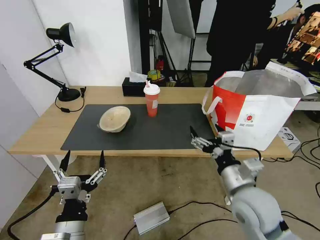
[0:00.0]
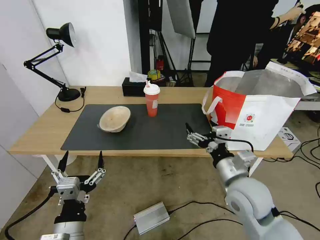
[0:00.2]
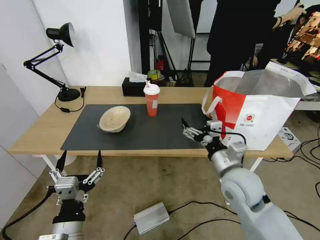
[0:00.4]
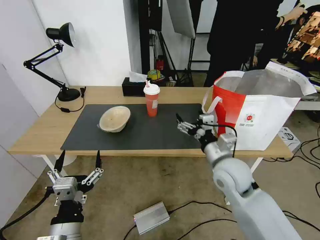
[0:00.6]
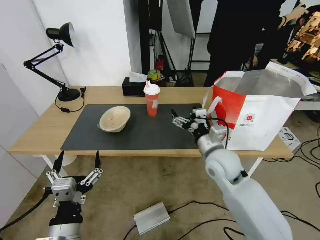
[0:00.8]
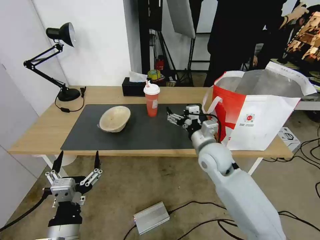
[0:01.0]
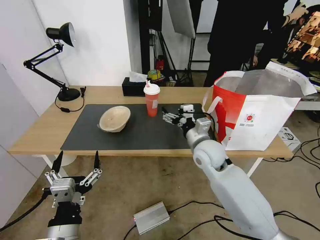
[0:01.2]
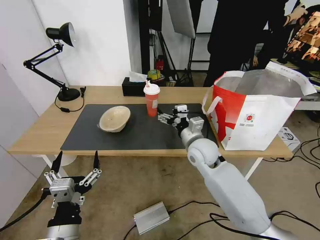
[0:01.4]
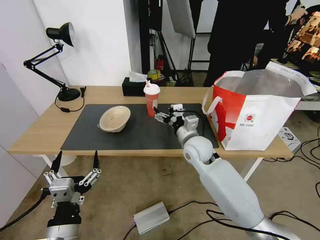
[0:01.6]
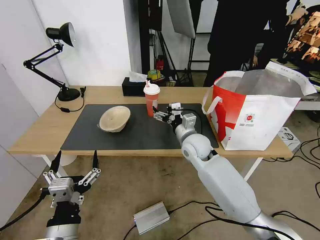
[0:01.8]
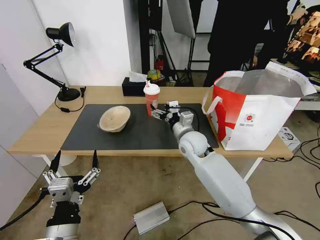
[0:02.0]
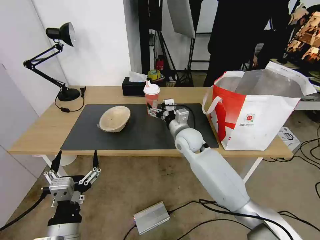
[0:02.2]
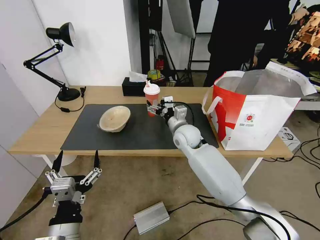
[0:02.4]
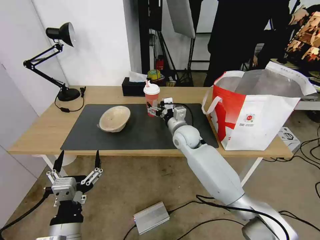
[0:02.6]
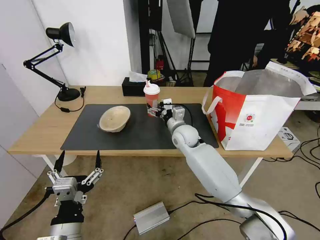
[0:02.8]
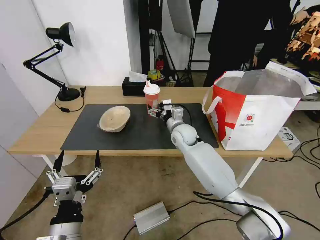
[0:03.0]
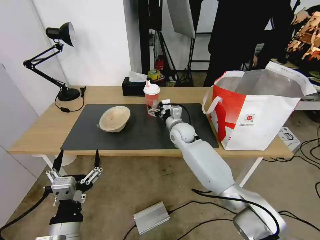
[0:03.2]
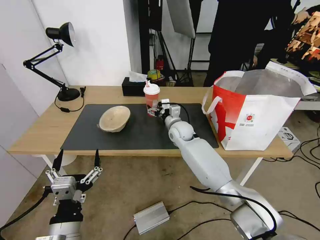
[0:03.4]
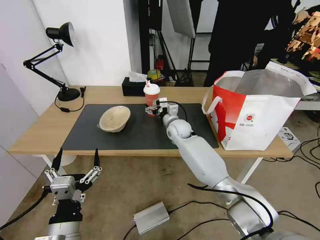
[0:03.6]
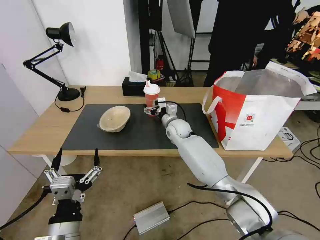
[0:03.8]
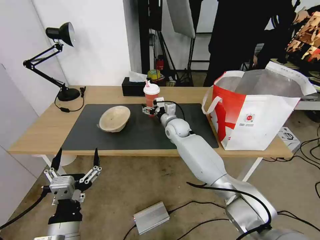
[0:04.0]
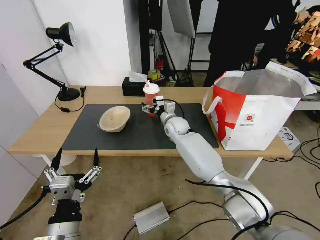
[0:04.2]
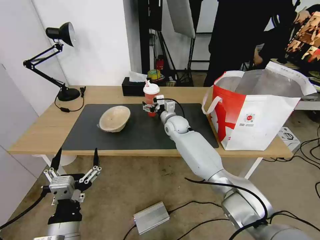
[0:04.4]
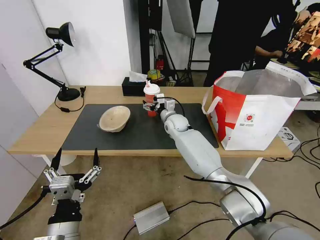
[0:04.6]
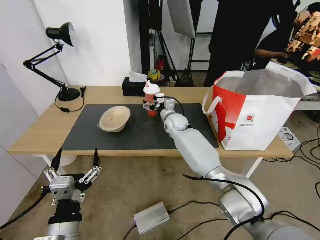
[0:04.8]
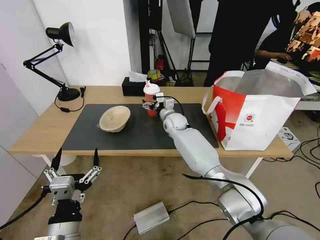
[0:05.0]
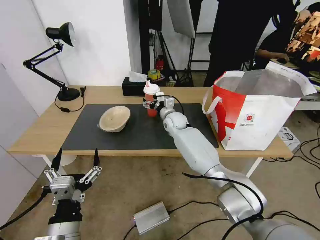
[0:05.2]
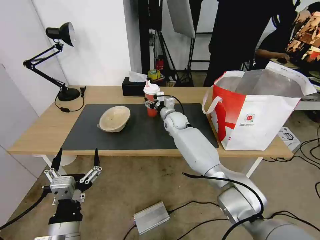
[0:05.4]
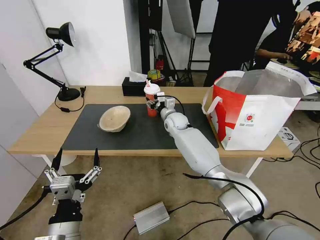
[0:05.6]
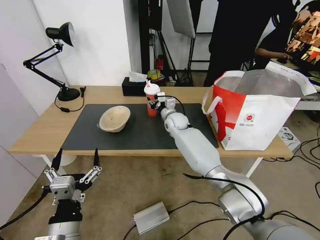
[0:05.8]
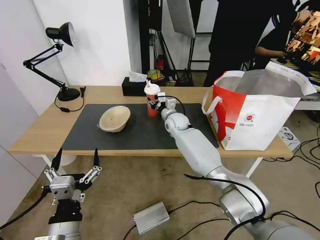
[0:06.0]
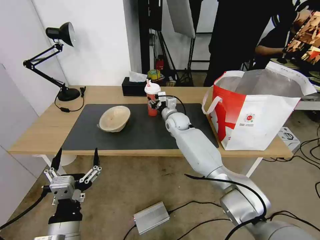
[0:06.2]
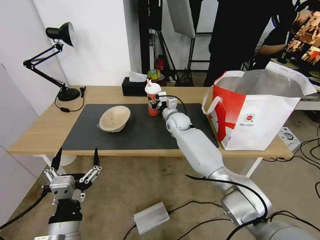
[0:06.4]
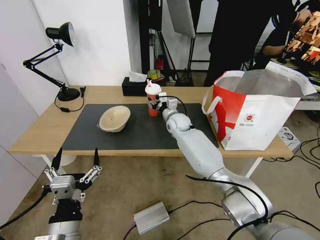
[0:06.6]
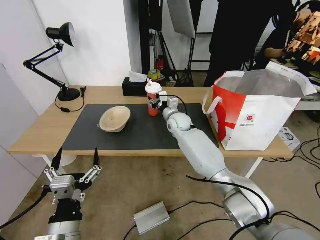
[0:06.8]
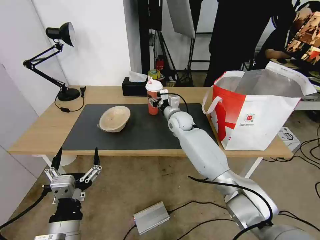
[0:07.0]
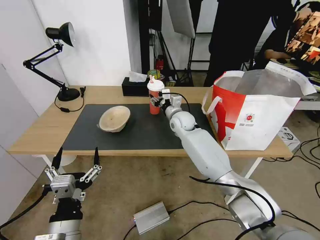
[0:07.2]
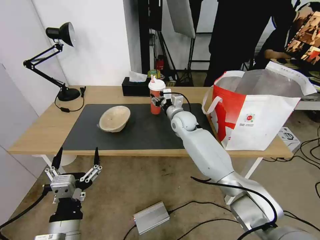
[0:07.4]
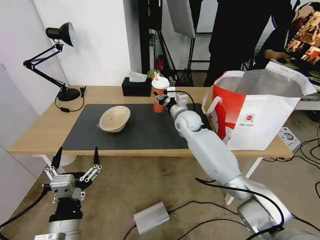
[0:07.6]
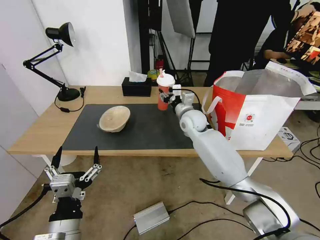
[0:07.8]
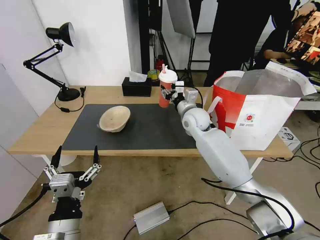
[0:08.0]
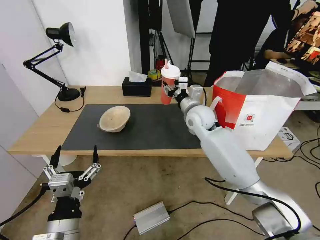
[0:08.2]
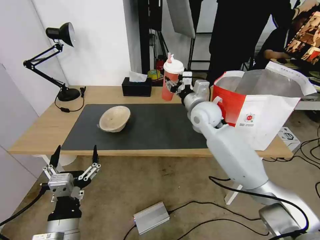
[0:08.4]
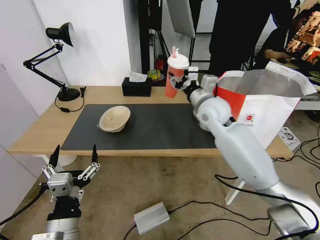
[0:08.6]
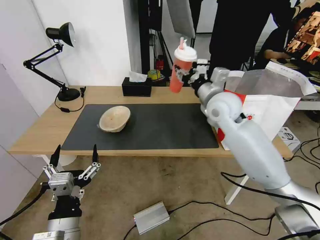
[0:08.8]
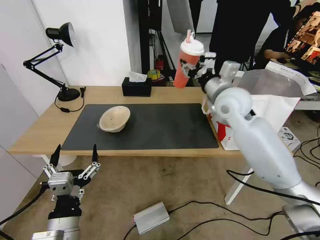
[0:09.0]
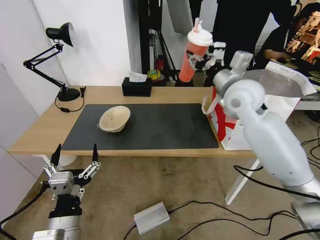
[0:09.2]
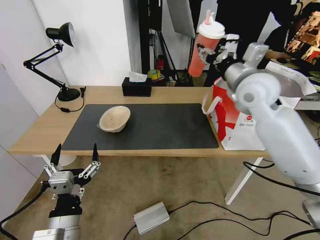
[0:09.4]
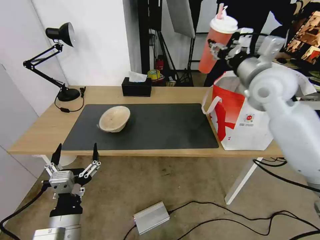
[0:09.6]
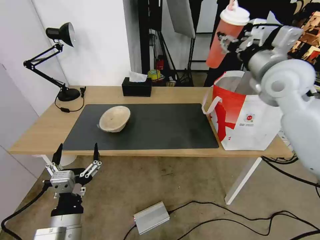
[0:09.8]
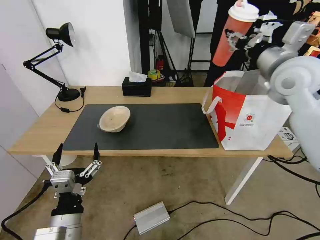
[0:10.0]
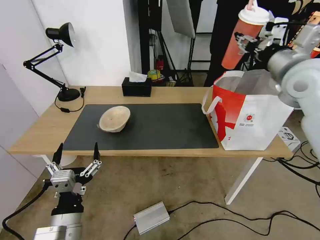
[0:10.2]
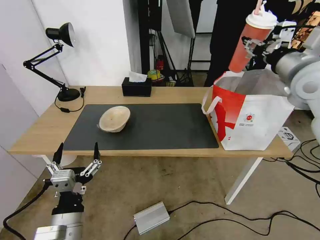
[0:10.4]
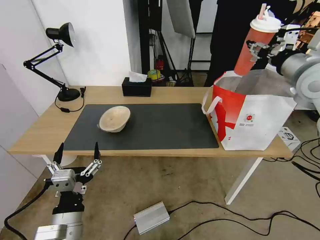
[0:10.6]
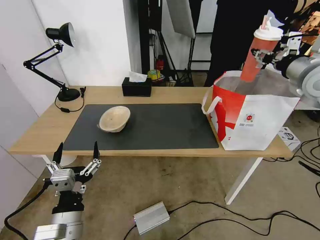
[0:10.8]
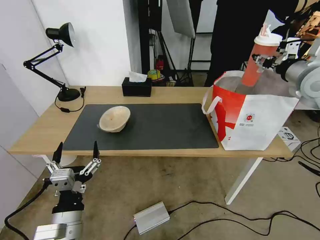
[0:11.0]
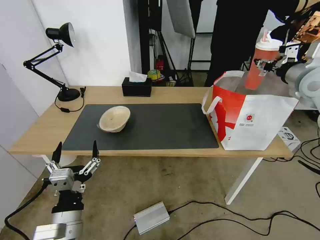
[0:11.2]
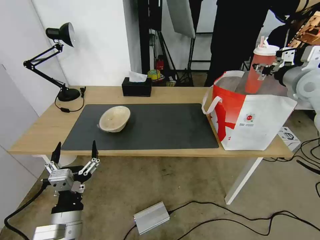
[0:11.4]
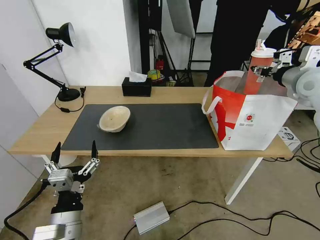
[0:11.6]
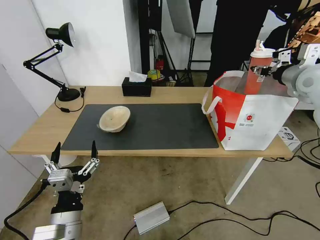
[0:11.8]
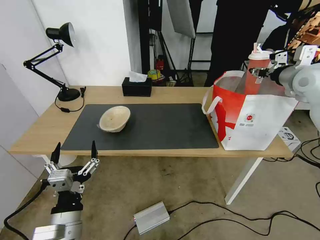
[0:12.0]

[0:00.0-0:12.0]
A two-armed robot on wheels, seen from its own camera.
Task of the whole recording: Pick up the trash from the table and place it into the takeout bag.
0:00.0 to 0:01.6: The right gripper goes about 20 cm forward and to the left.
0:01.6 to 0:03.0: The right gripper is displaced forward by some 10 cm.
0:03.0 to 0:04.4: The right gripper heads forward, covering roughly 5 cm.
0:04.4 to 0:06.0: The right gripper closes its fingers.
0:06.0 to 0:07.6: The right gripper shifts by some 5 cm.
0:07.6 to 0:09.0: The right gripper heads upward, to the right and backward, covering approximately 20 cm.
0:09.0 to 0:10.4: The right gripper is displaced to the right and upward by approximately 15 cm.
0:10.4 to 0:12.0: The right gripper moves forward and to the right, some 10 cm.

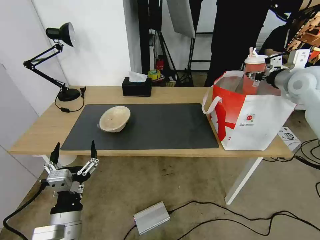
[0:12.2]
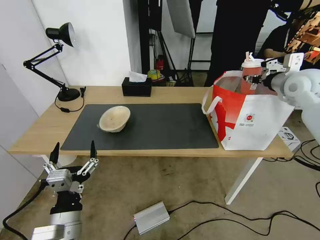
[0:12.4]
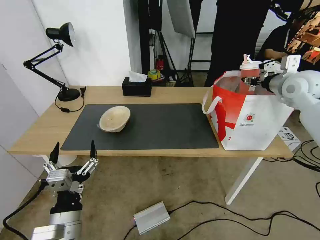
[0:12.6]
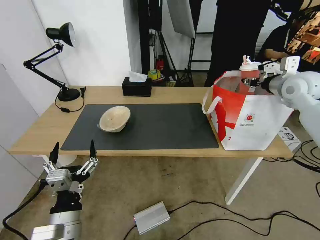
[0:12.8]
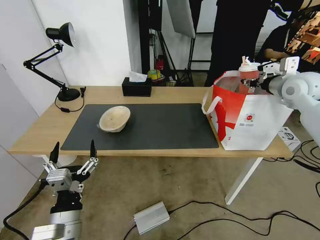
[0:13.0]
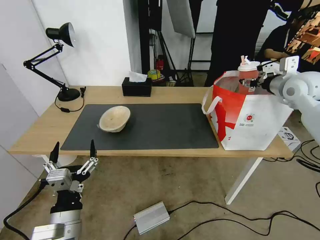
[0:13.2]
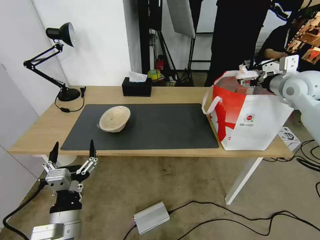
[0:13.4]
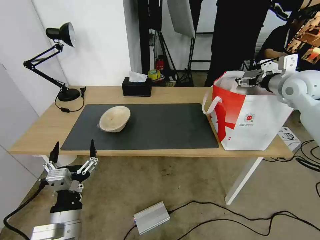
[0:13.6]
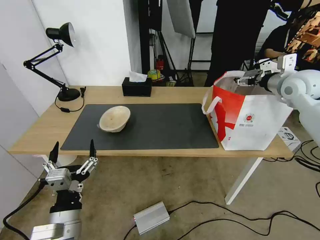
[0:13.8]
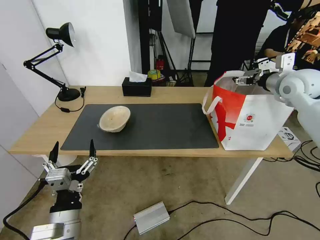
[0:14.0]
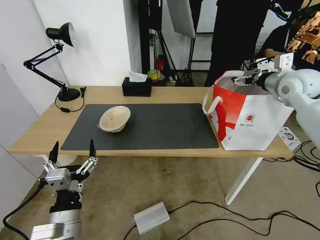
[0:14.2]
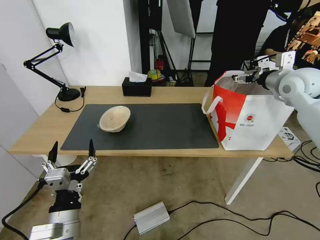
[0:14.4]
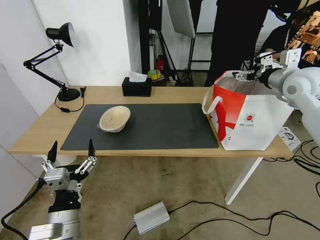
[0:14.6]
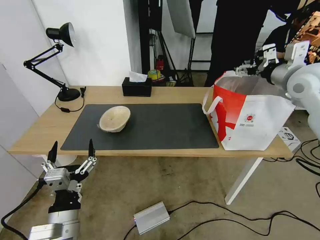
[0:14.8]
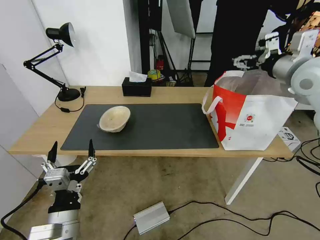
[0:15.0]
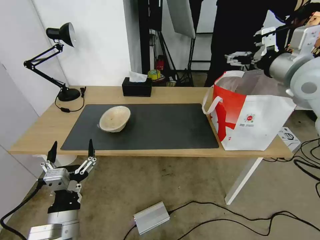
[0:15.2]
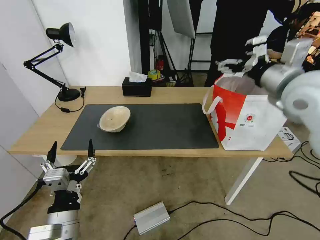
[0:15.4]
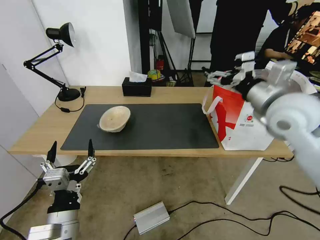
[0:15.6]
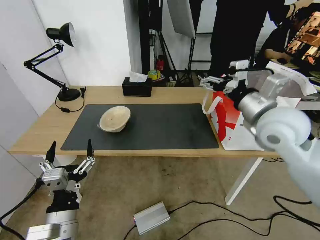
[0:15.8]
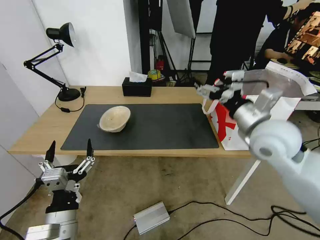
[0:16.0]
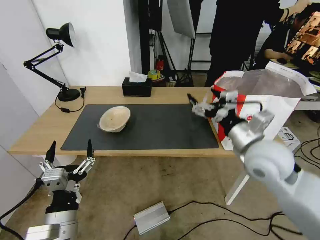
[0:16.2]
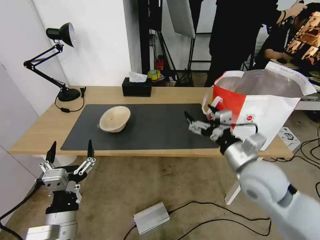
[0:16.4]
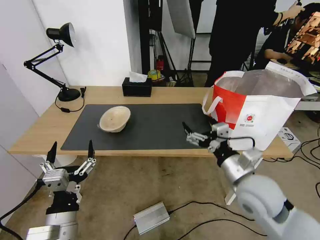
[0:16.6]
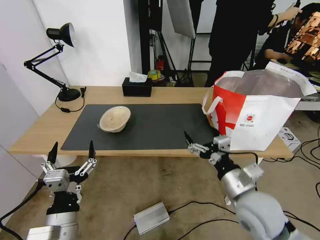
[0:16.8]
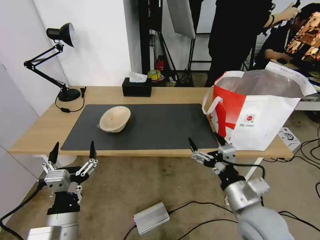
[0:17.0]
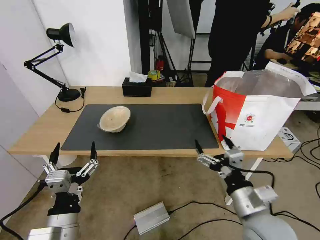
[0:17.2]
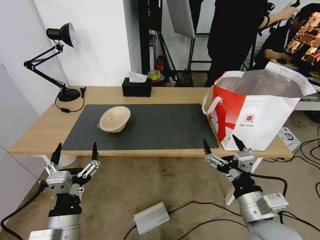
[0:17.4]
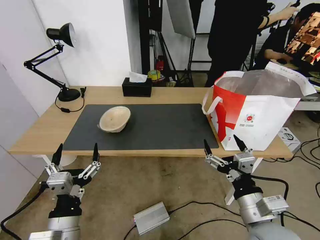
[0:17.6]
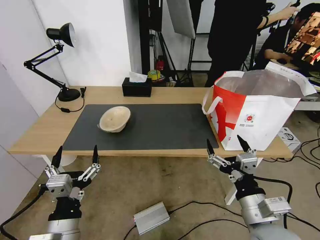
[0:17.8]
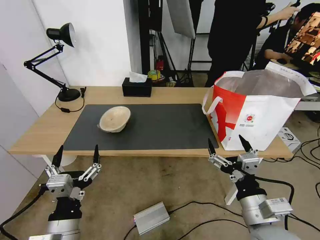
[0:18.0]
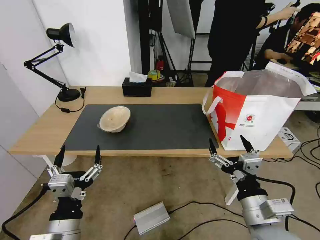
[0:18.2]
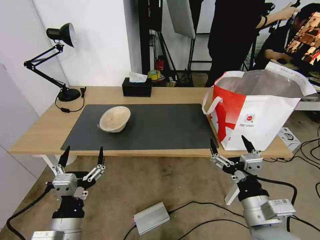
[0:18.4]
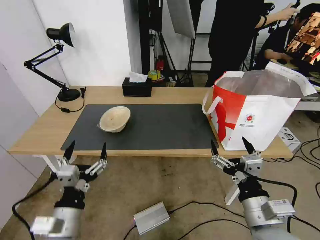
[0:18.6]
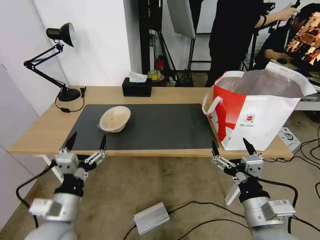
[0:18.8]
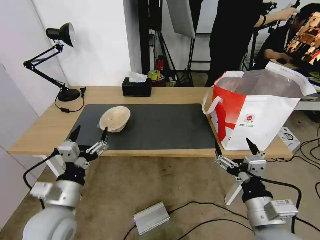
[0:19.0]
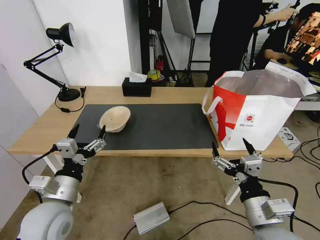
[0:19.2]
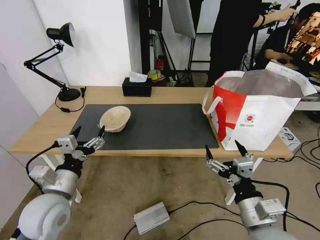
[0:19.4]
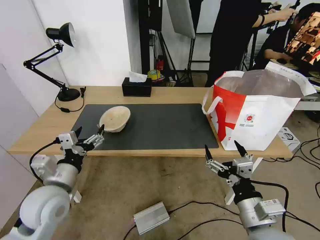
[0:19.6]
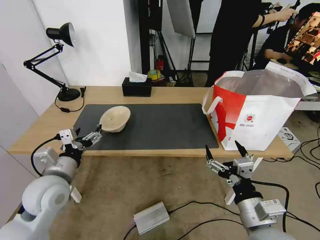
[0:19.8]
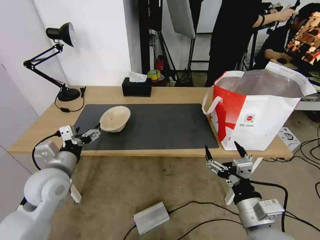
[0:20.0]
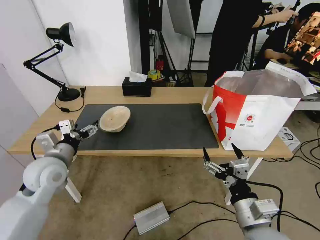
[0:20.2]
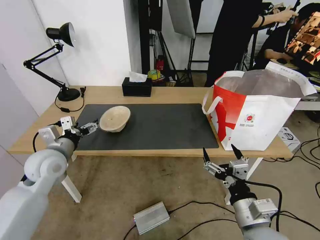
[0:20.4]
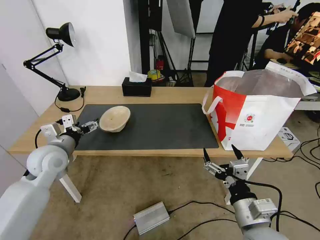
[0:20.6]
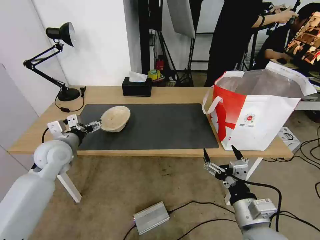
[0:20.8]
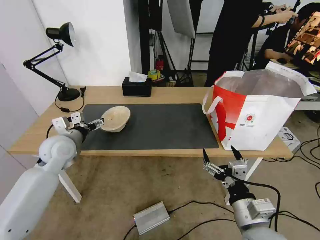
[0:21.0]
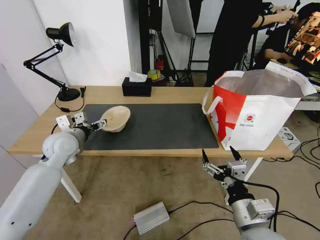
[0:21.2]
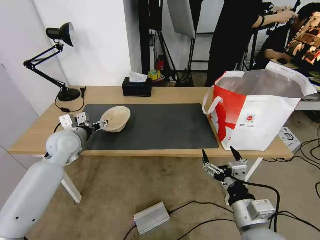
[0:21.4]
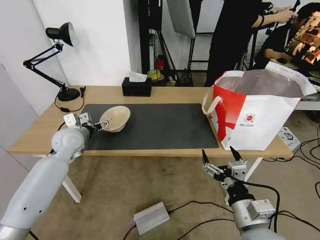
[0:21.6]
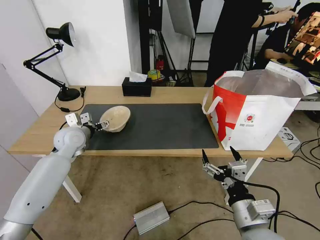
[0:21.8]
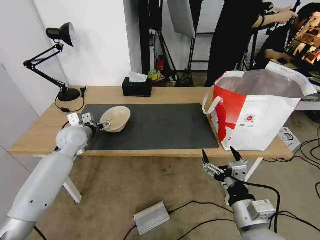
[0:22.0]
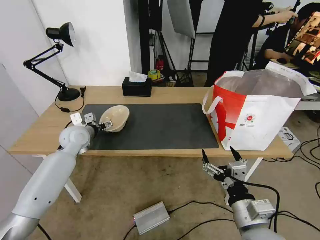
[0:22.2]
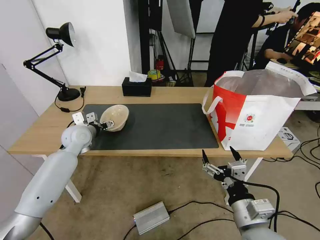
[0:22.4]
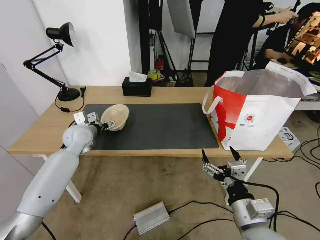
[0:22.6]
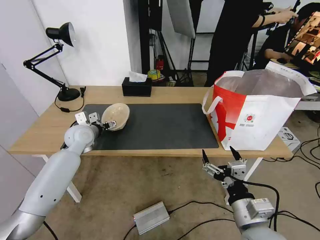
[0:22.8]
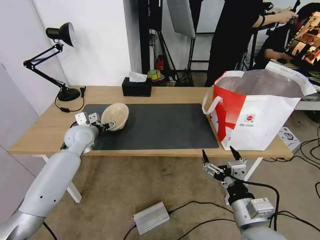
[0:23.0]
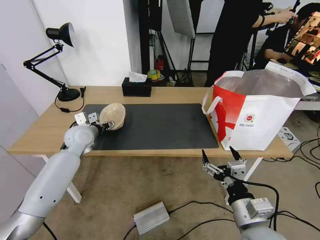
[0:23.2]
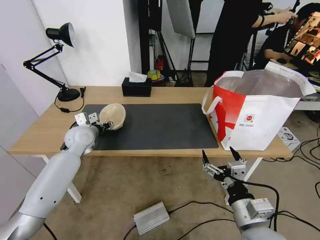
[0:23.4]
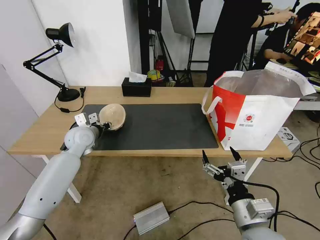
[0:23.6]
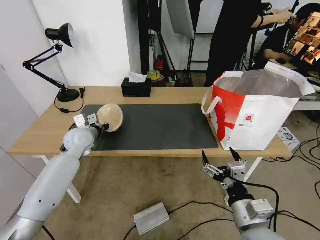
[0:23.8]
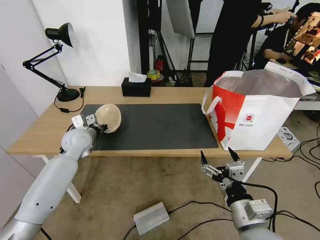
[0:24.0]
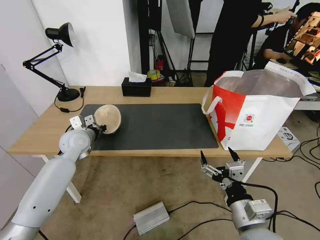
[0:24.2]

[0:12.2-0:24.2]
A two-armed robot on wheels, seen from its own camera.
Task of the whole recording: Pick up the trash from the table and place it into the takeout bag.
0:12.2 to 0:13.8: The right gripper opens.
0:13.8 to 0:15.2: The right gripper moves backward, to the left and upward, roughly 15 cm.
0:15.2 to 0:16.6: The right gripper is displaced downward, backward and to the left by approximately 30 cm.
0:16.6 to 0:18.2: The right gripper goes approximately 10 cm backward.
0:18.2 to 0:19.8: The left gripper shifts about 15 cm forward and to the left.
0:19.8 to 0:21.2: The left gripper moves forward, approximately 15 cm.
0:21.2 to 0:22.6: The left gripper travels forward by roughly 5 cm.
0:22.6 to 0:24.2: The left gripper closes its fingers.
